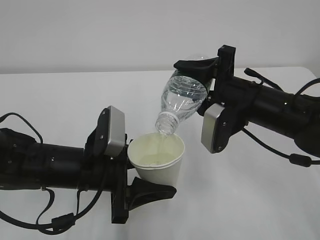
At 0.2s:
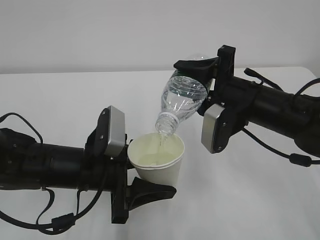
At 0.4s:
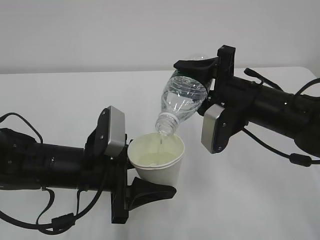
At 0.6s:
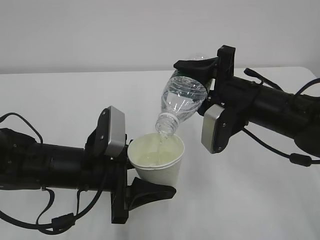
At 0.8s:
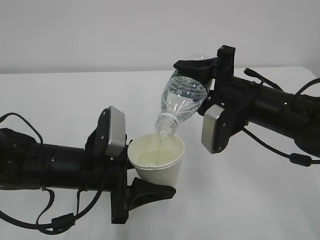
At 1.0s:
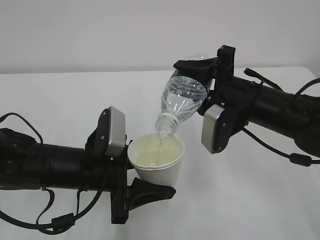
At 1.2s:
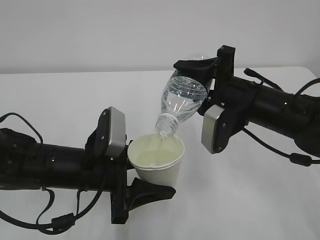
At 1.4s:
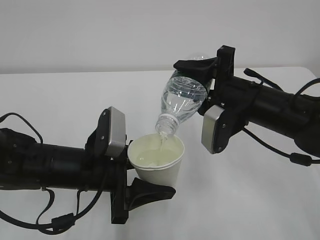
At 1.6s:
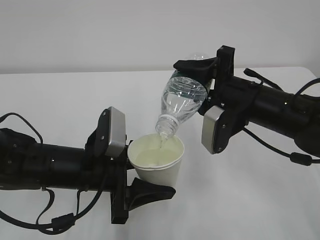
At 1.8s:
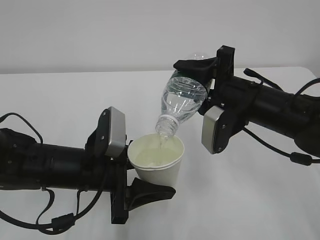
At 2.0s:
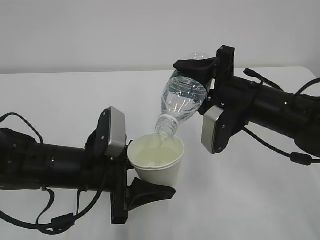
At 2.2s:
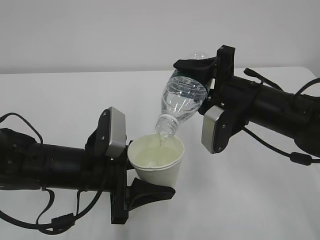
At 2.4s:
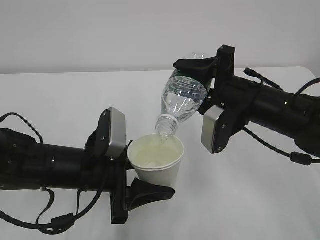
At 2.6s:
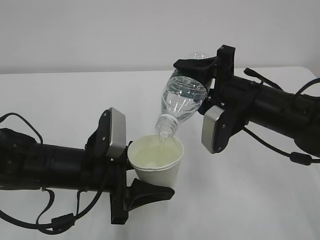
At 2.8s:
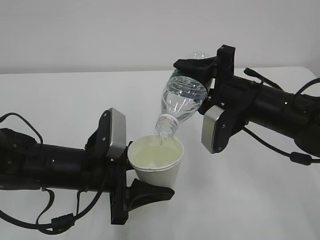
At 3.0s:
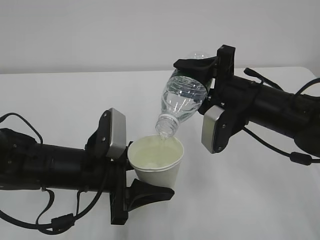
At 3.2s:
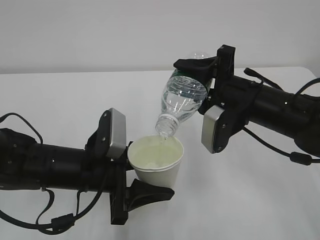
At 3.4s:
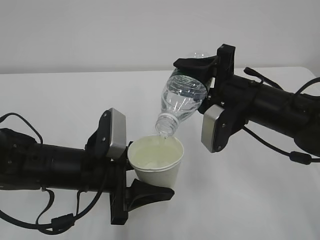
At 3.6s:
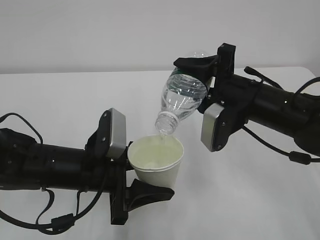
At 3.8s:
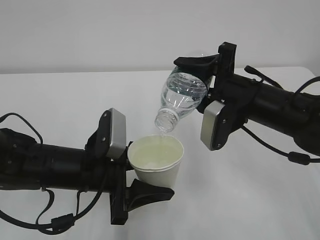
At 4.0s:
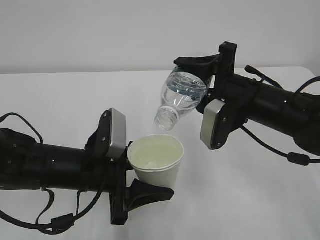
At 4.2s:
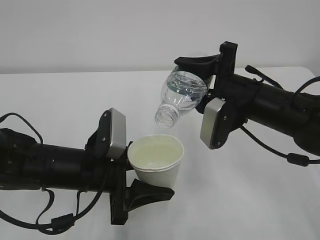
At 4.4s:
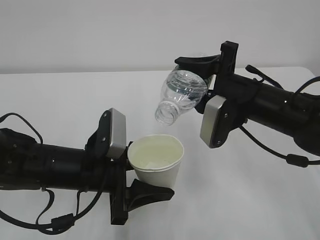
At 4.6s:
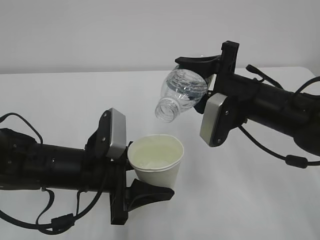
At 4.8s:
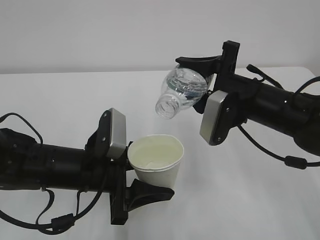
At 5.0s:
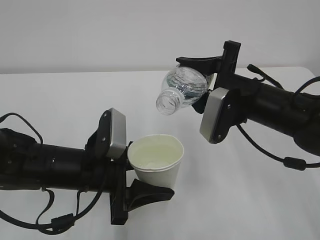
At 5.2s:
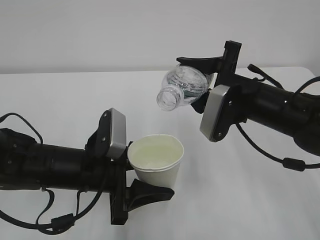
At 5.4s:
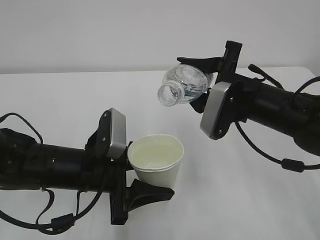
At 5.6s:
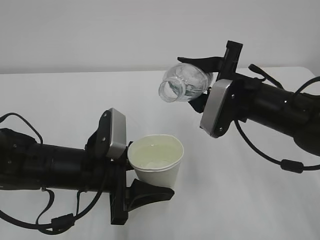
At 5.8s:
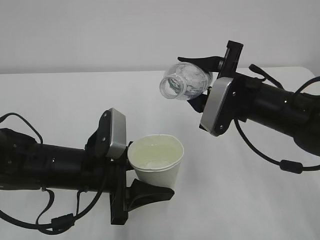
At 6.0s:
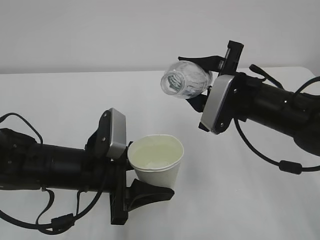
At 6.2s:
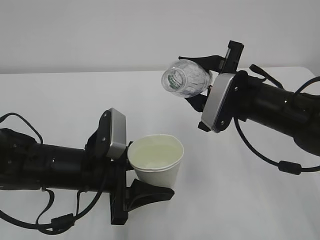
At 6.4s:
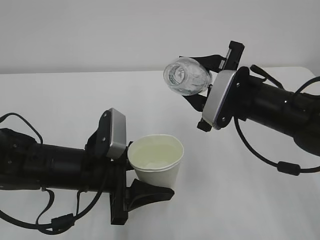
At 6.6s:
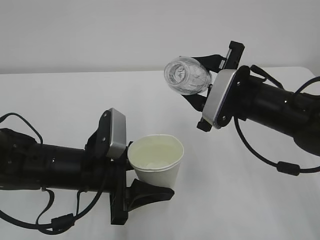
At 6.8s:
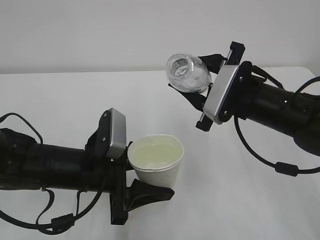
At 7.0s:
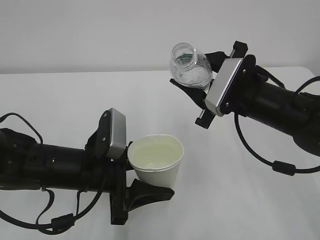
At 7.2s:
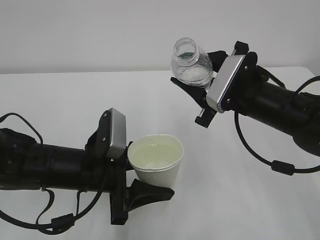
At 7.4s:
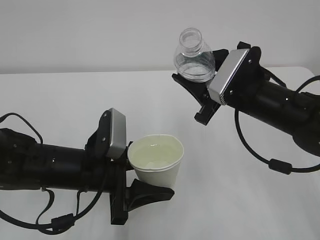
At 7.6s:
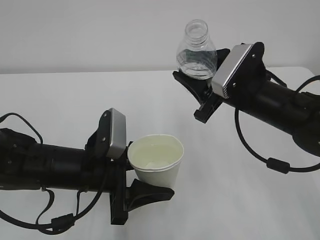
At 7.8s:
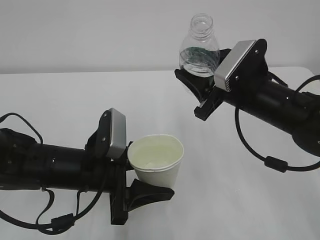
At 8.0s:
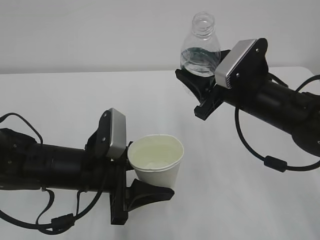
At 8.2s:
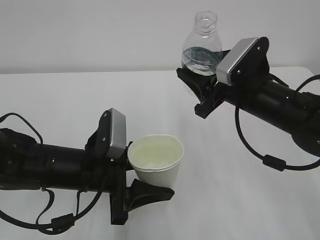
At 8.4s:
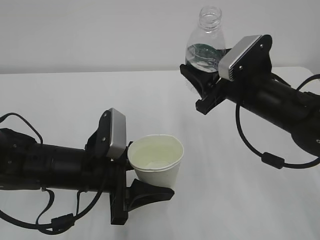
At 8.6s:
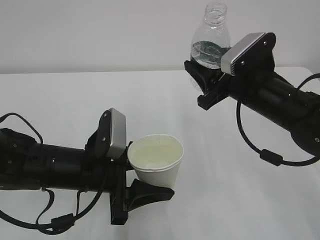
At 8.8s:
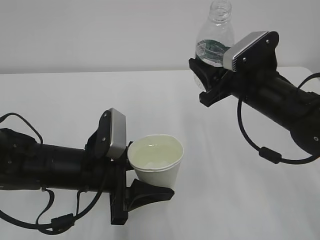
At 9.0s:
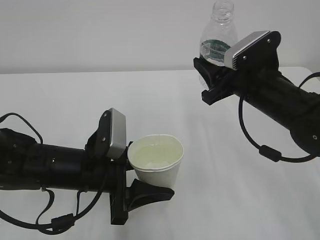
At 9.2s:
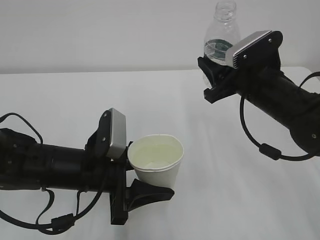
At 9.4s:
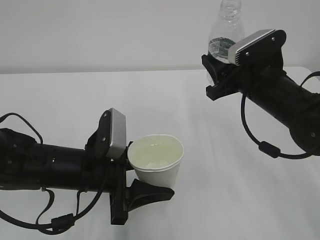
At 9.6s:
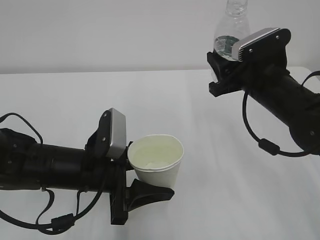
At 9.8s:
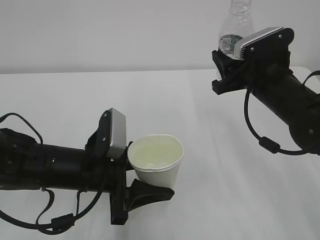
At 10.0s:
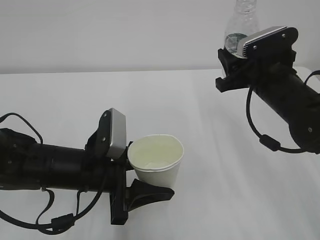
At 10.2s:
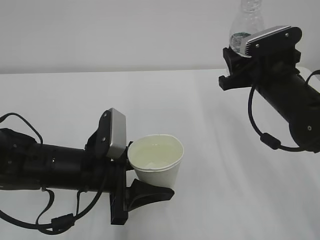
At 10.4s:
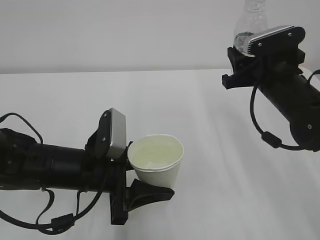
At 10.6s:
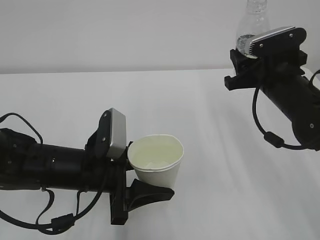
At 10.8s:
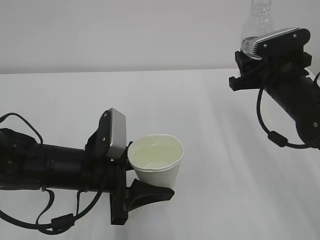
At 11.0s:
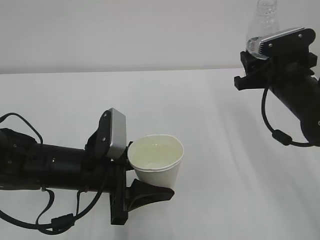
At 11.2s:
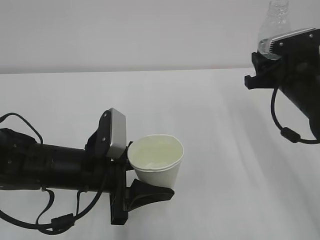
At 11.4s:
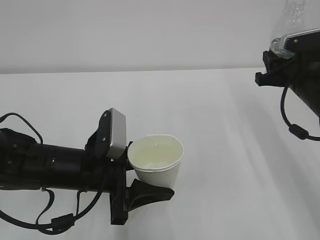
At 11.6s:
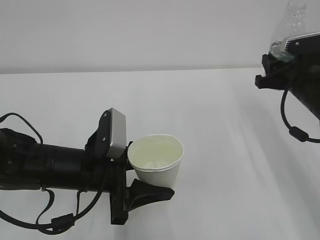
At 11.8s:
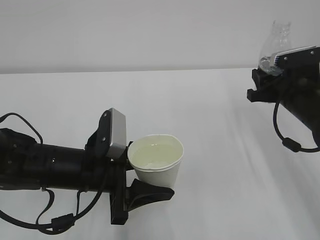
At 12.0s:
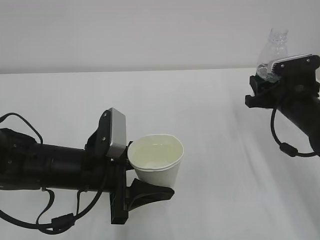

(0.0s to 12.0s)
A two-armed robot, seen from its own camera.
0.0s - 3.0s: Both grippers stay put.
3.0s - 4.4s: The grippers make only small movements.
10.4s - 12.0s: The right gripper shifts roughly 10 cm to the right and downward.

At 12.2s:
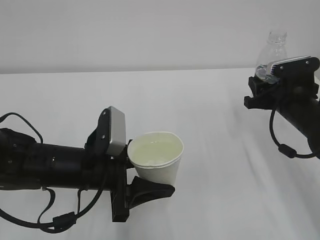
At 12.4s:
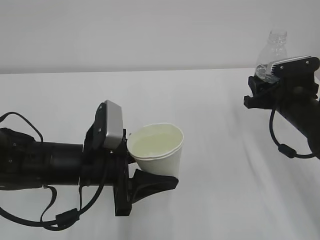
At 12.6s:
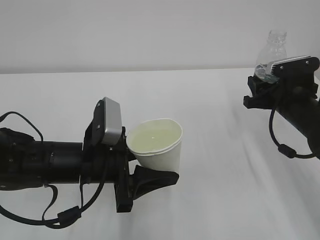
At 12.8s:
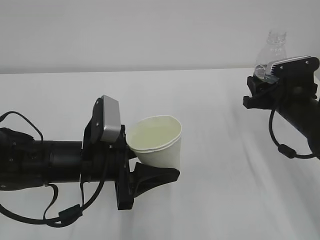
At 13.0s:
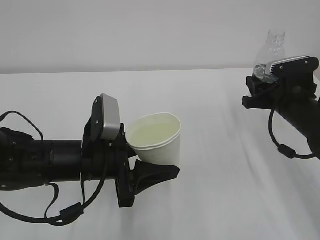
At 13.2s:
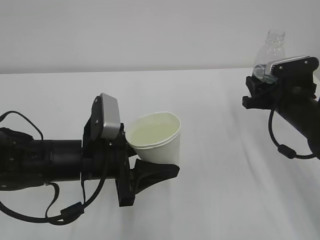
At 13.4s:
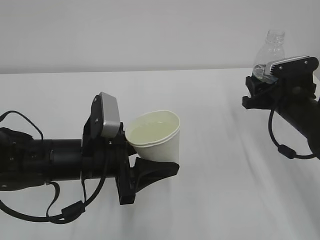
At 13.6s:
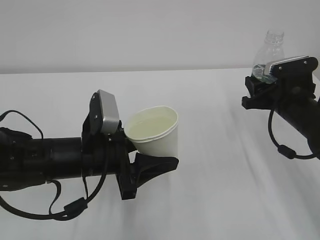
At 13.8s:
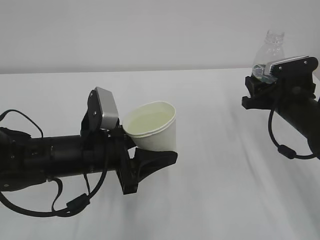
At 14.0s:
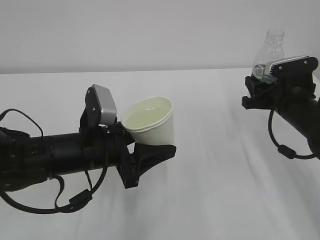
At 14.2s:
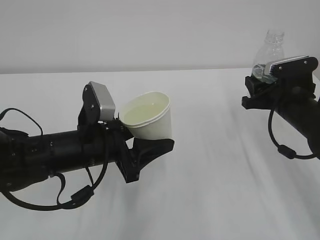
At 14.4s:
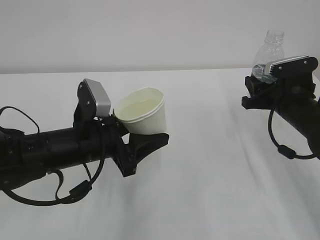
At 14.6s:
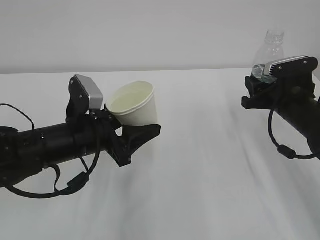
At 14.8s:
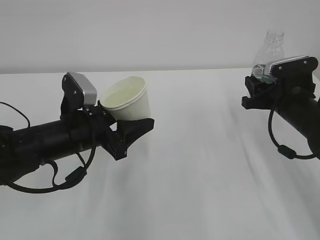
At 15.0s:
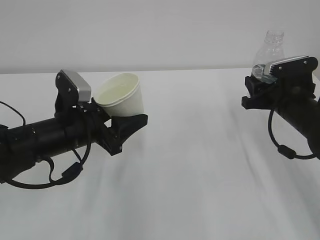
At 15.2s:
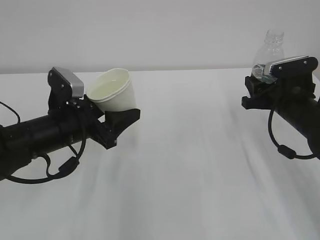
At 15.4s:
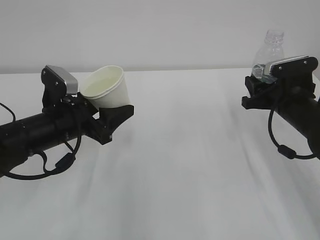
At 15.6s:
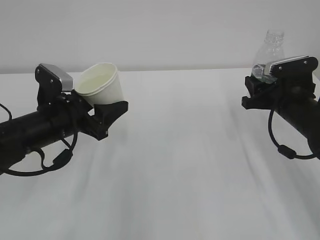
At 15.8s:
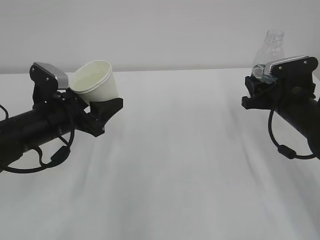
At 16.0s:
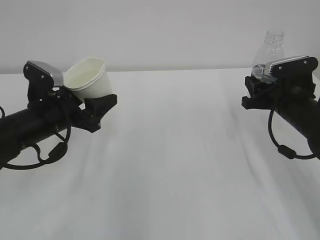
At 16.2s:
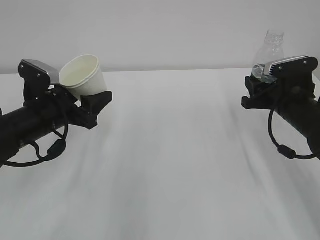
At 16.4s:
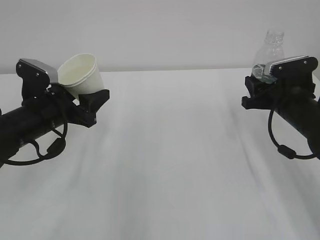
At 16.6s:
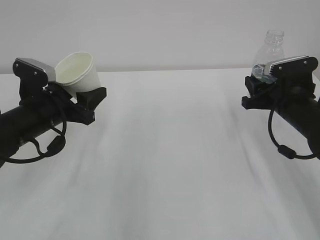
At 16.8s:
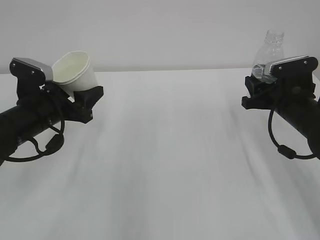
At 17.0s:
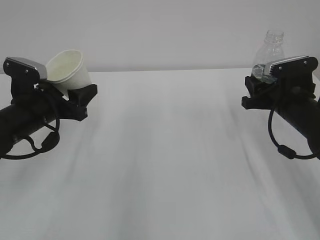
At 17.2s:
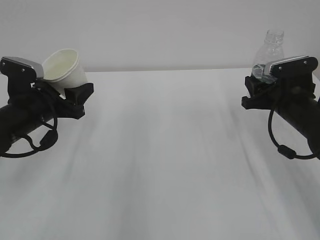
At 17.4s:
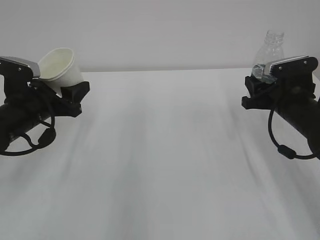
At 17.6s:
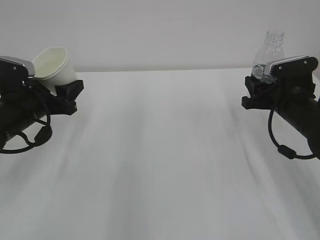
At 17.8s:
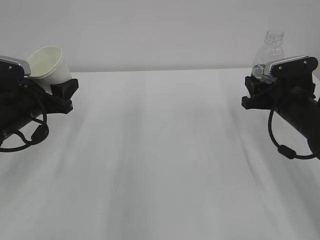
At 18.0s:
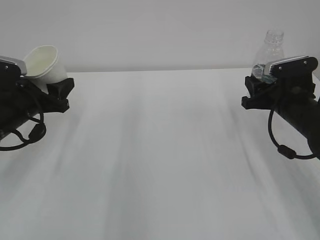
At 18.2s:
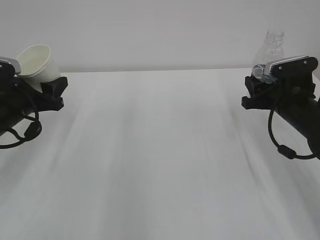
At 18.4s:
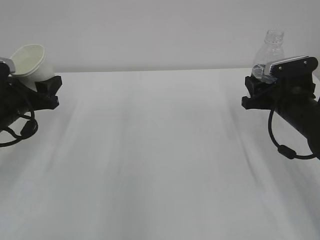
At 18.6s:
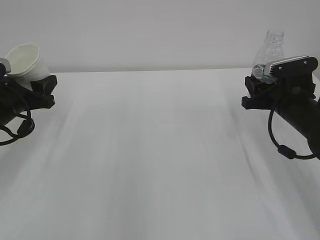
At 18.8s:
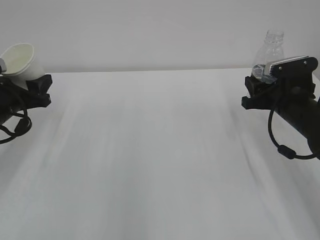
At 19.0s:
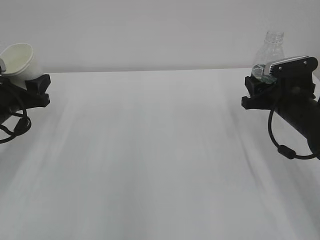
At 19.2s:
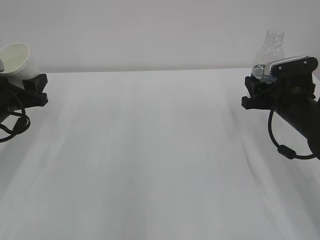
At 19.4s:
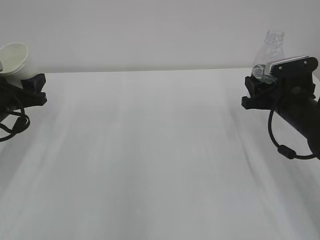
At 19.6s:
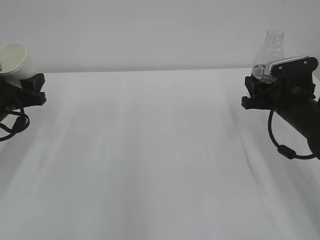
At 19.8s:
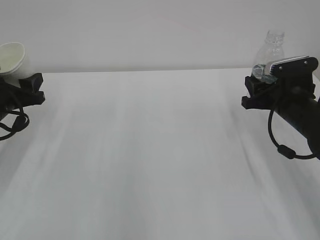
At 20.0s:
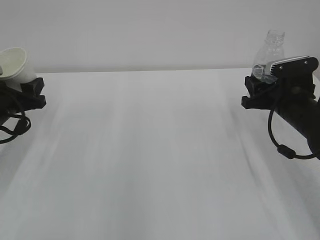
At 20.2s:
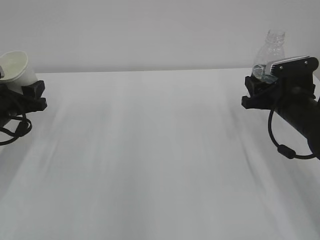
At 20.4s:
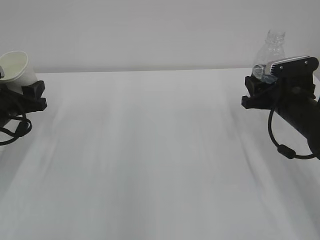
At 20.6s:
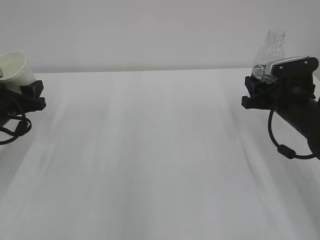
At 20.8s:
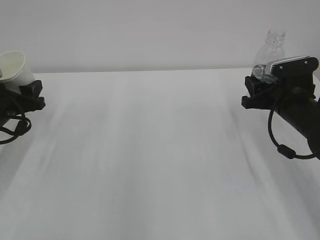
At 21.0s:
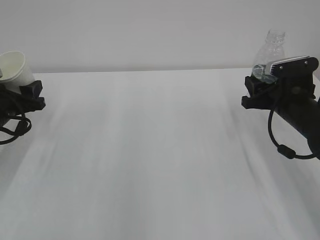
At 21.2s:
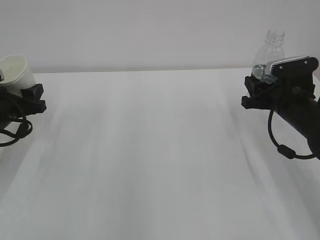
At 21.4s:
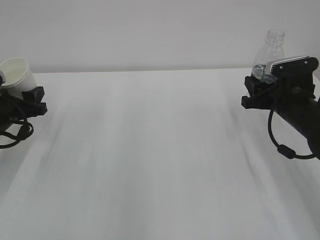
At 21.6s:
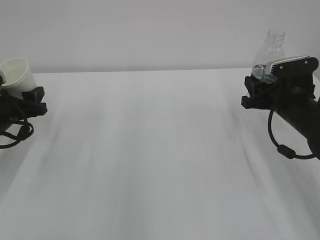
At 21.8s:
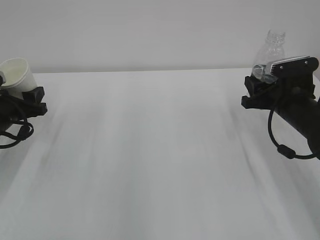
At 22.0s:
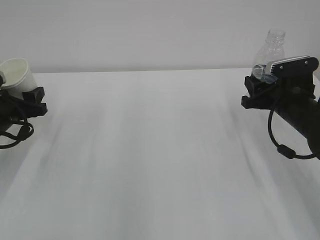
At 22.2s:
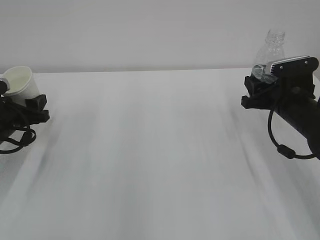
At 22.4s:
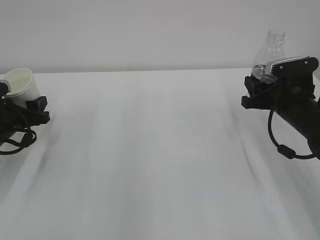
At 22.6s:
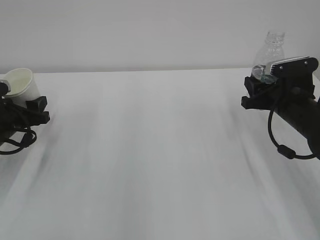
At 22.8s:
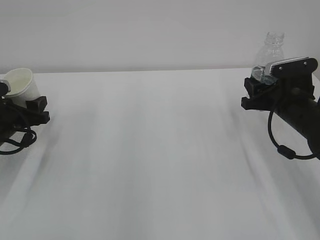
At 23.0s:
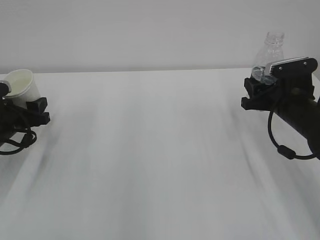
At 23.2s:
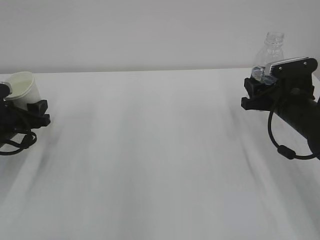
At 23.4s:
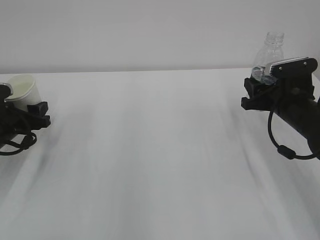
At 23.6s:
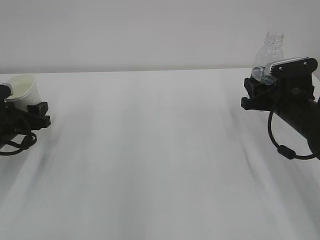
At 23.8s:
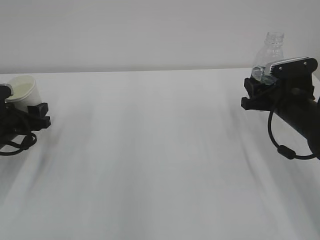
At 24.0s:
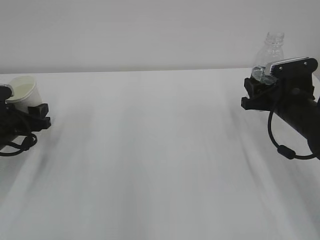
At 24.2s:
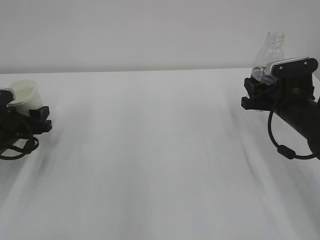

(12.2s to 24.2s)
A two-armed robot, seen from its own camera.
12.2s - 13.8s: There are only small adjustments of the grippers.
13.8s - 15.2s: The left gripper goes some 5 cm to the left.
15.2s - 16.6s: The left gripper moves about 5 cm.
16.6s - 18.2s: The left gripper moves to the left, approximately 5 cm.
18.2s - 22.6s: The grippers make only small movements.
22.6s - 24.2s: The grippers move only a little.
